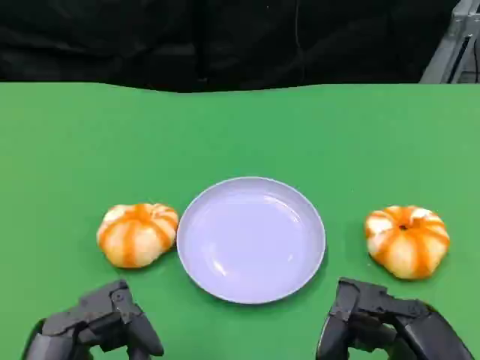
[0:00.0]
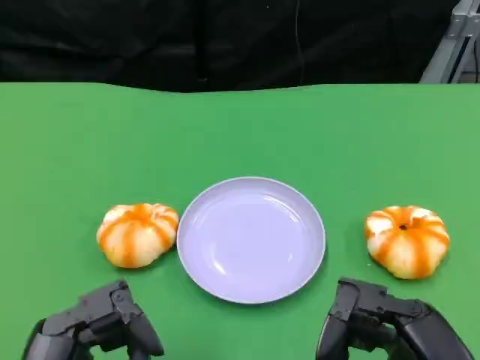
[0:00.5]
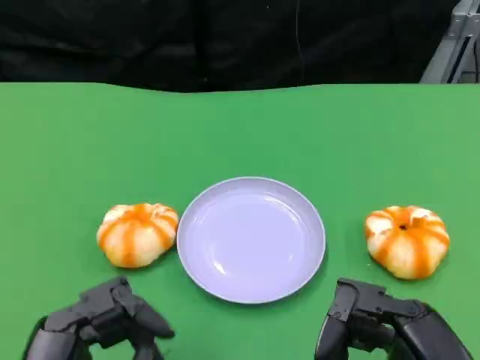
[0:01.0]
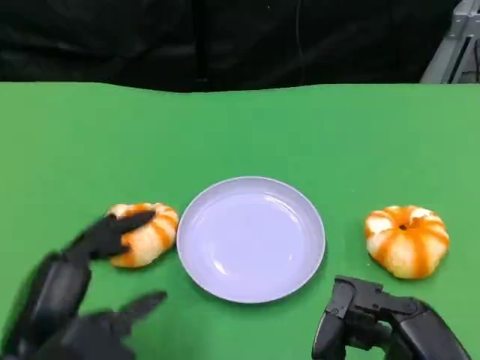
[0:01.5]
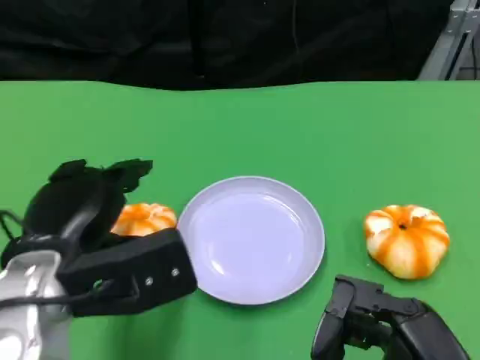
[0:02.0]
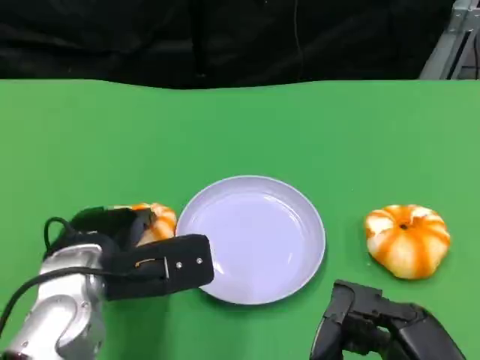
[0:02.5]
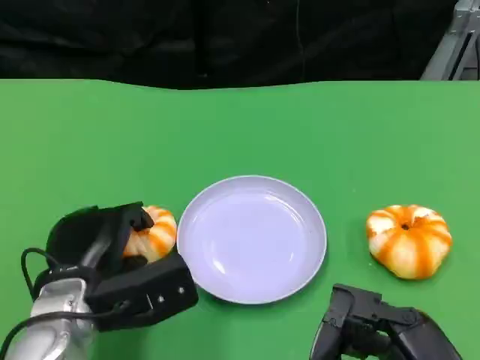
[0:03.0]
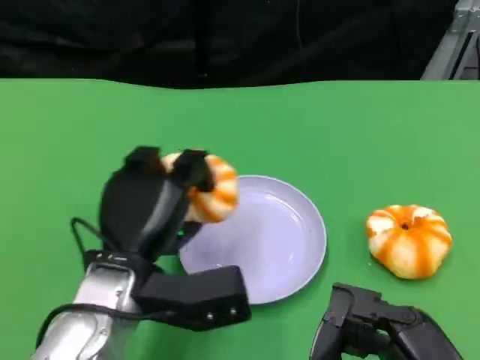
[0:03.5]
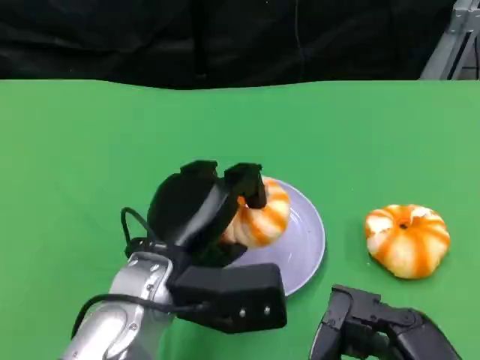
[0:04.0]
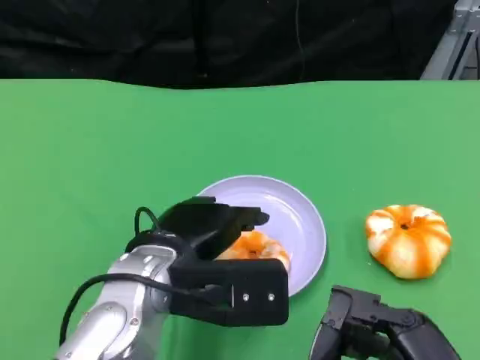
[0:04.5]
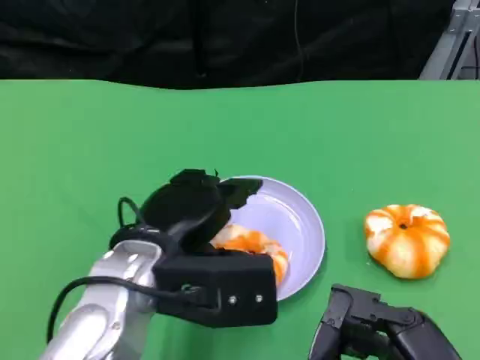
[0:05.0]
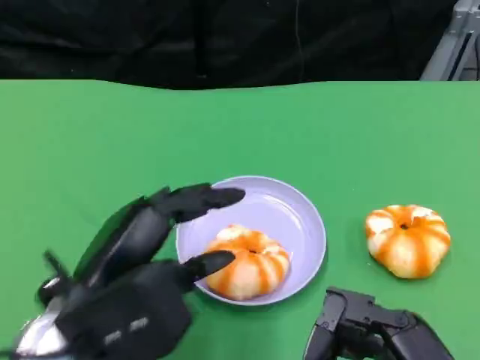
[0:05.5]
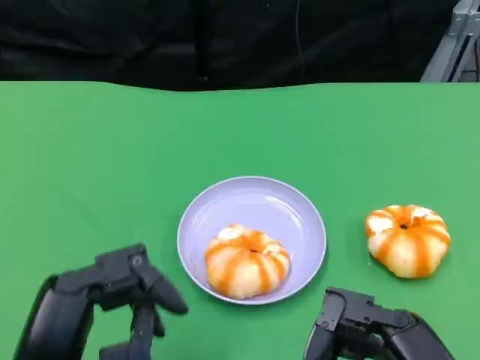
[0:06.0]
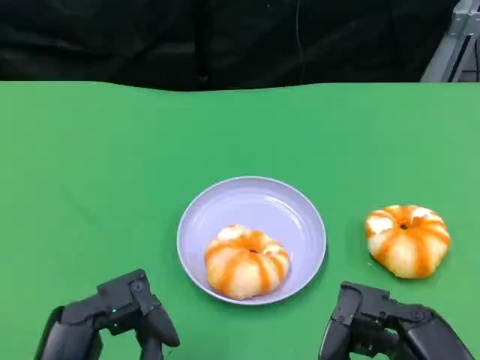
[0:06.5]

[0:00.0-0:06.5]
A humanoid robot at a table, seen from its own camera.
Task of the whole recording: Grasp the bread from the table and place it into the plate.
0:00.0 to 0:02.0: The left hand moves forward, some 15 cm.
0:02.0 to 0:04.5: The left hand is displaced to the right by about 10 cm.
0:04.5 to 0:06.5: The left hand shifts approximately 15 cm backward and to the left.

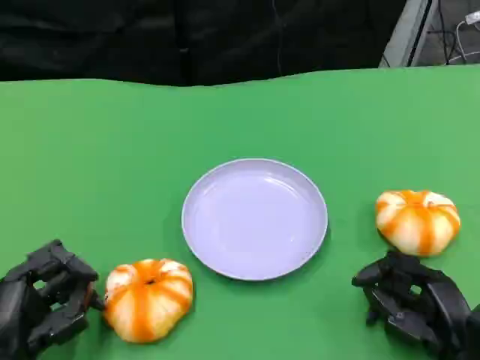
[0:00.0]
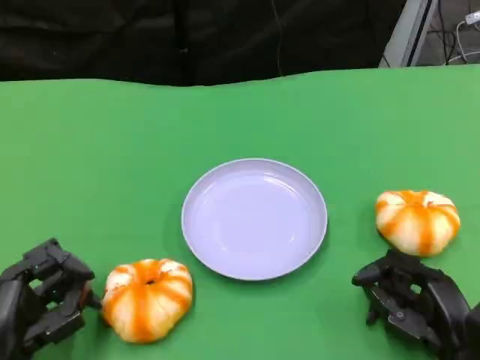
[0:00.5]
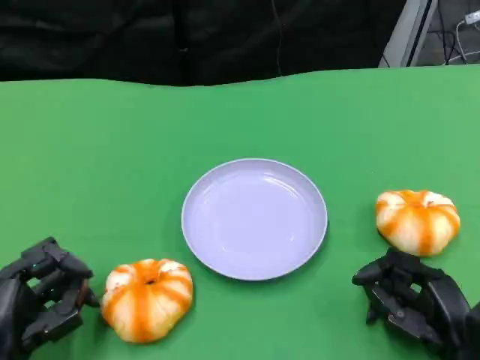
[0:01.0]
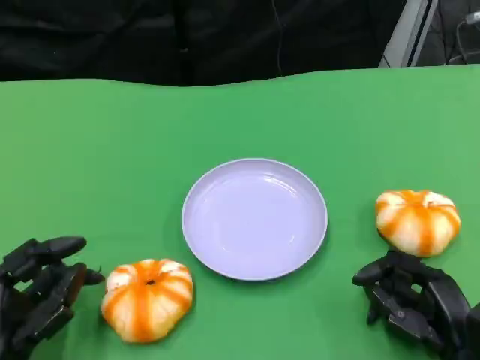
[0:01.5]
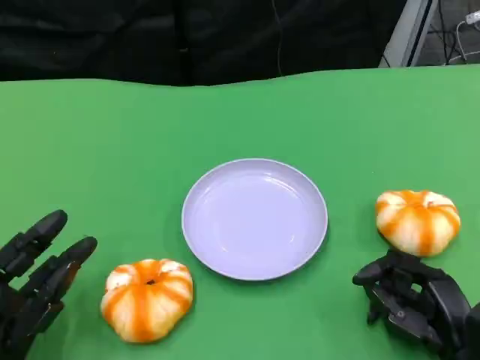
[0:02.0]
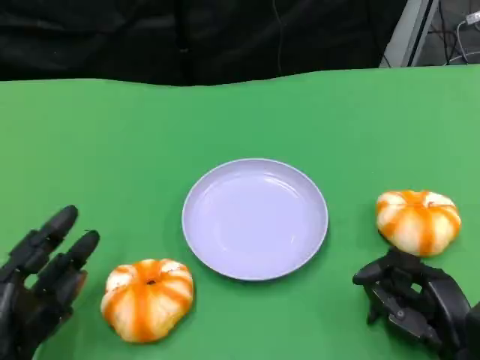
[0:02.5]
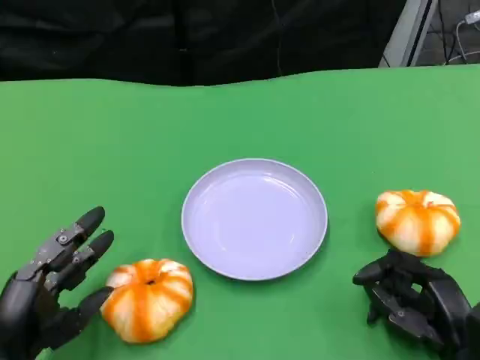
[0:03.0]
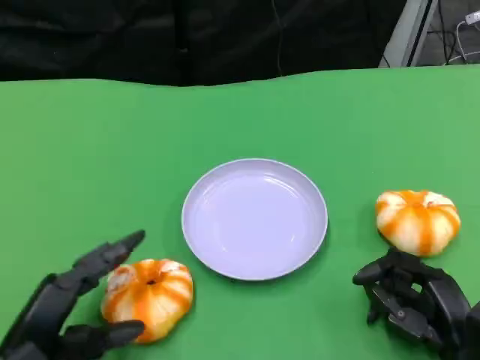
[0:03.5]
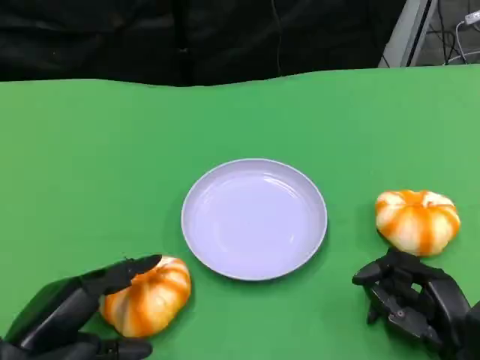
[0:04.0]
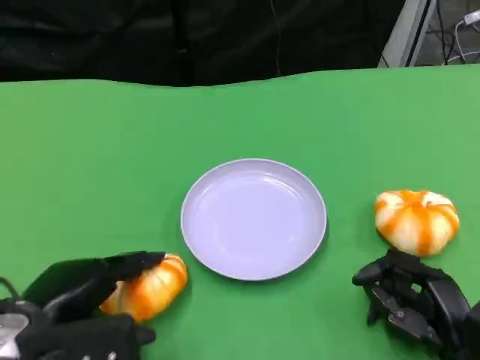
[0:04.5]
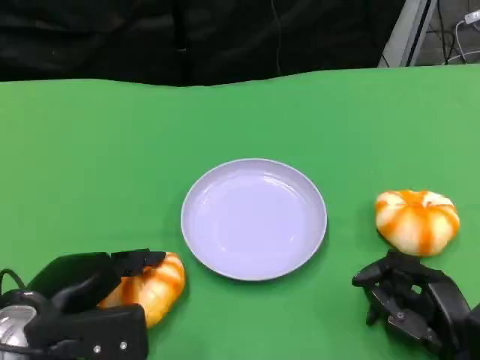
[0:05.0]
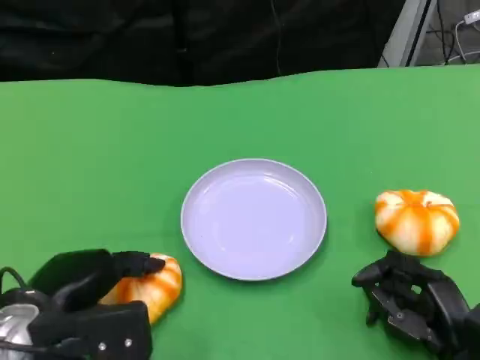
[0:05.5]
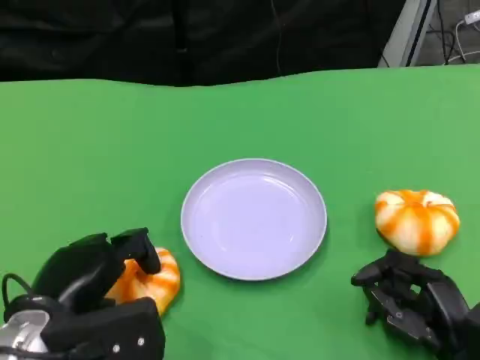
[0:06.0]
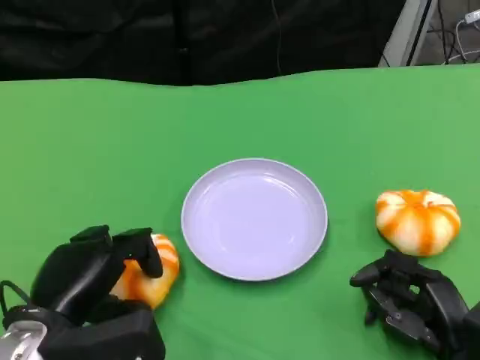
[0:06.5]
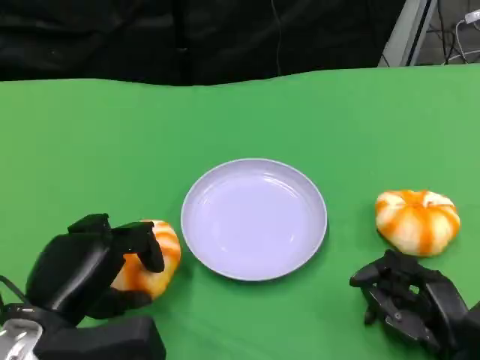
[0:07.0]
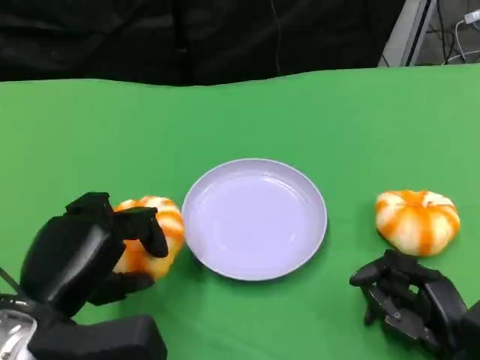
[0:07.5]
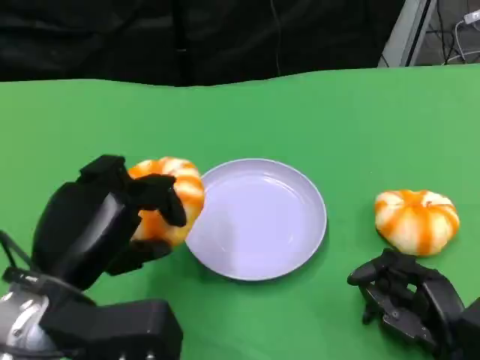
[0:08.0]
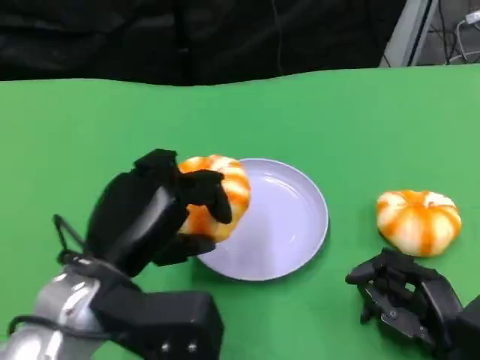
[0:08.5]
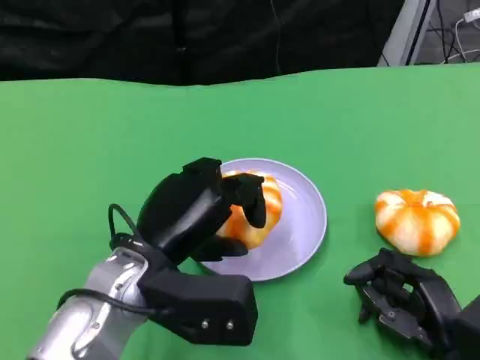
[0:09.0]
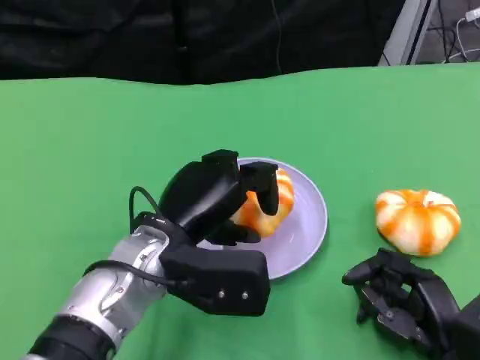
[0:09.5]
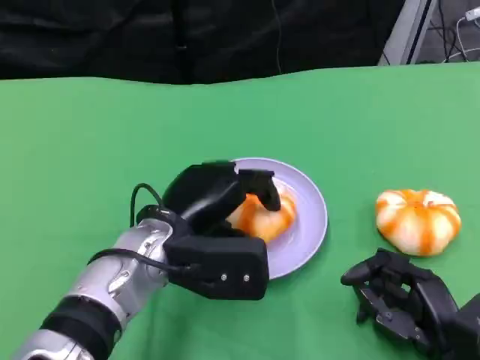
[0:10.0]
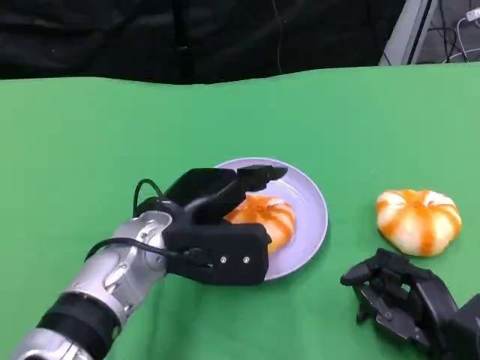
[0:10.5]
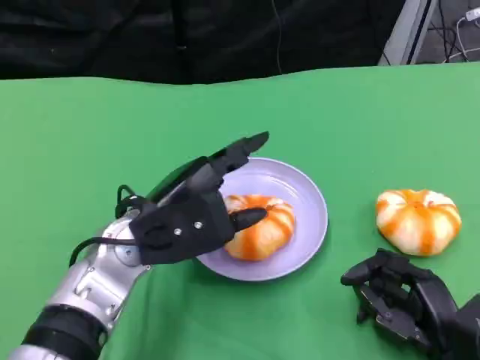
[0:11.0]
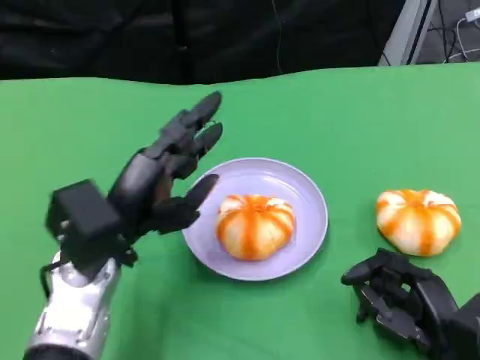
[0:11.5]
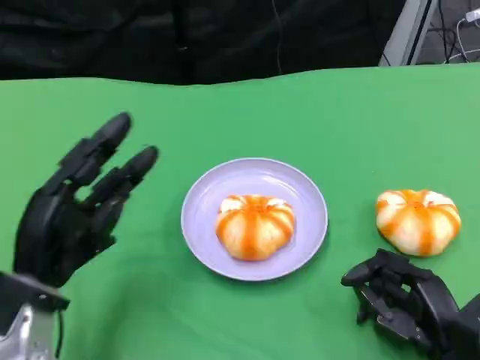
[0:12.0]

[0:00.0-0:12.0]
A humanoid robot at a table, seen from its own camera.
Task of the whole recording: Grasp the bread from the table and place it into the plate.
0:00.0 to 0:02.0: There are only small adjustments of the hands.
0:02.0 to 0:04.0: The left hand moves upward, some 5 cm.
0:04.0 to 0:06.0: The hands stay close to where they were, moving slightly.
0:06.0 to 0:08.0: The left hand goes approximately 5 cm upward.
0:08.0 to 0:10.0: The left hand is displaced to the right and forward by approximately 10 cm.
0:10.0 to 0:12.0: The left hand is displaced to the left and backward by roughly 15 cm.

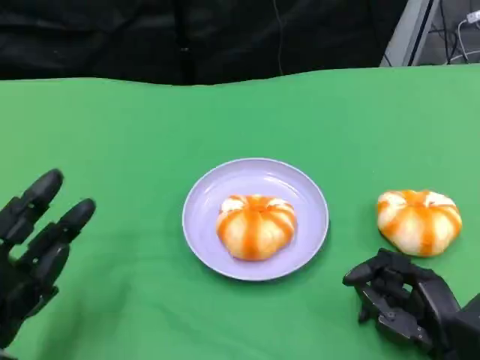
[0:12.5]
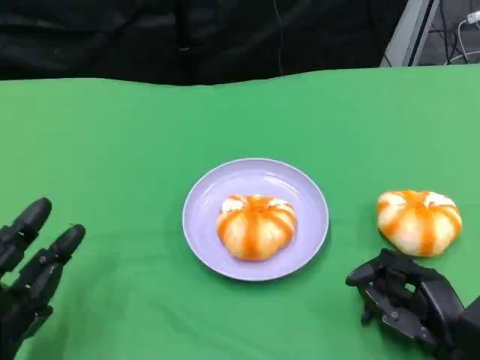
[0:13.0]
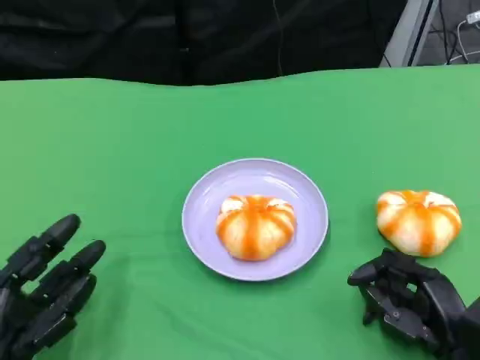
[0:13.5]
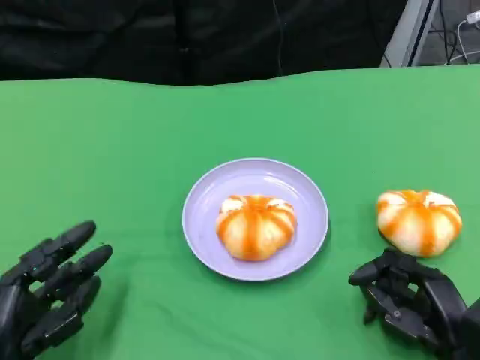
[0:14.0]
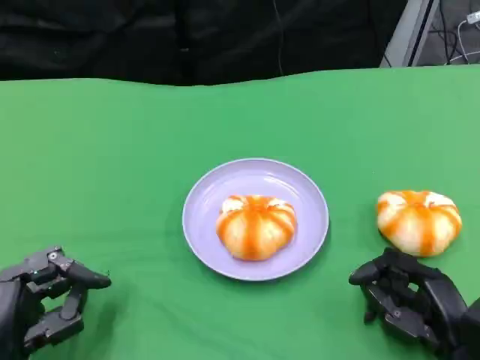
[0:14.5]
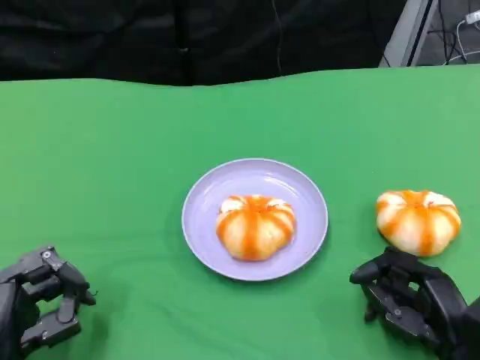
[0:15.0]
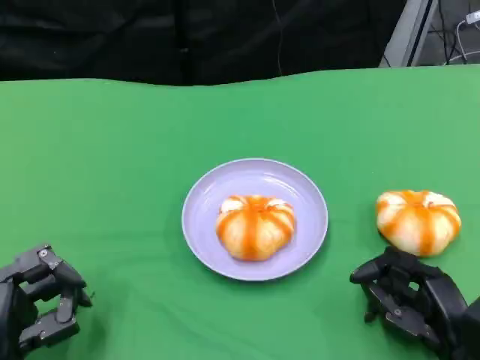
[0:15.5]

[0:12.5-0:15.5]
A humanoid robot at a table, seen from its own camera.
Task of the whole recording: Grasp the bread from the table and place it into the plate.
0:12.5 to 0:15.5: The hands stay close to where they were, moving slightly.
